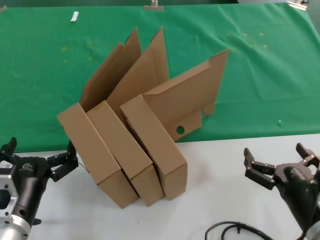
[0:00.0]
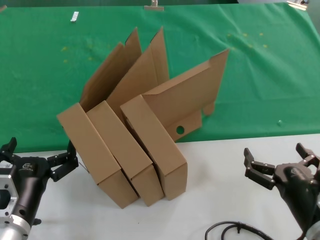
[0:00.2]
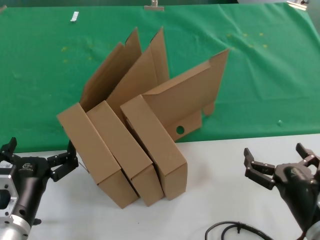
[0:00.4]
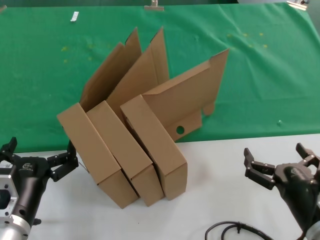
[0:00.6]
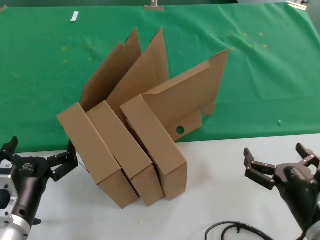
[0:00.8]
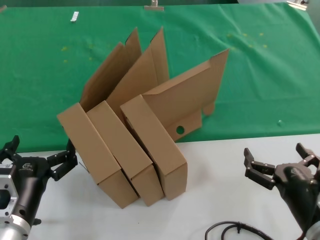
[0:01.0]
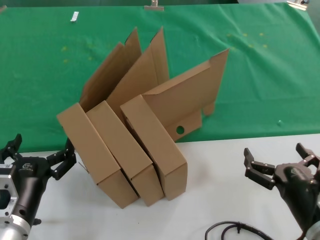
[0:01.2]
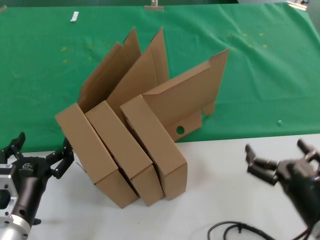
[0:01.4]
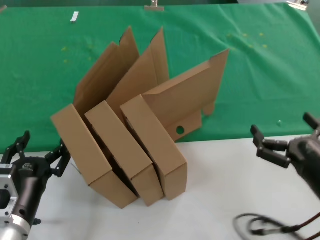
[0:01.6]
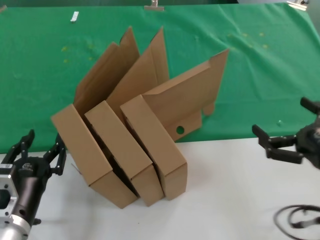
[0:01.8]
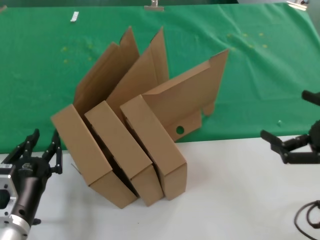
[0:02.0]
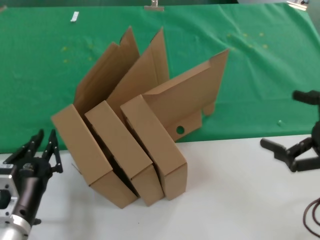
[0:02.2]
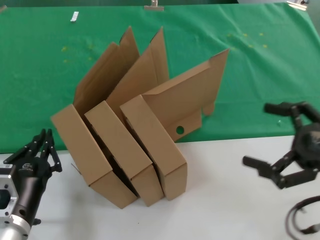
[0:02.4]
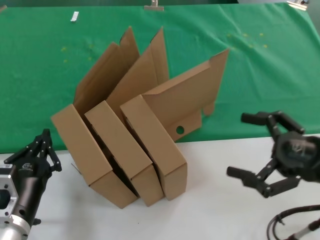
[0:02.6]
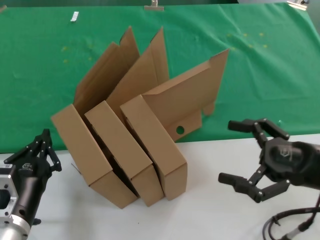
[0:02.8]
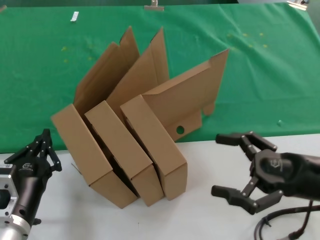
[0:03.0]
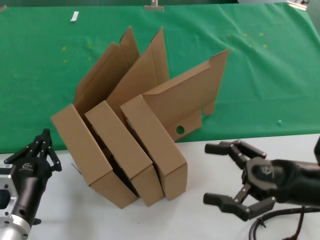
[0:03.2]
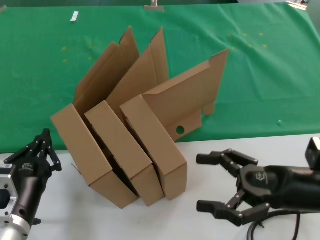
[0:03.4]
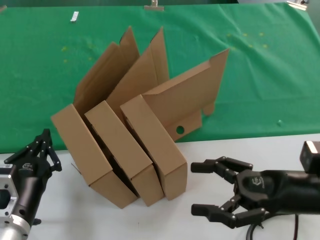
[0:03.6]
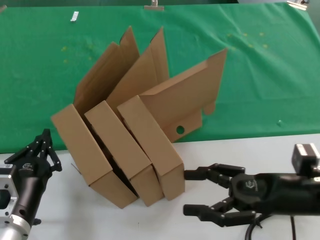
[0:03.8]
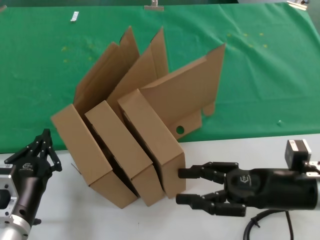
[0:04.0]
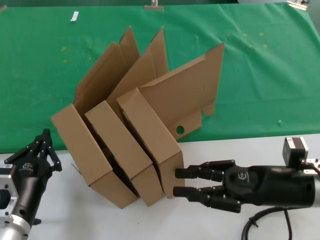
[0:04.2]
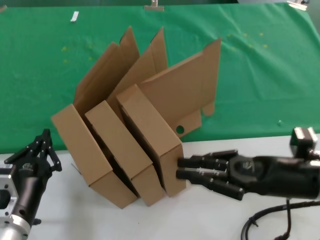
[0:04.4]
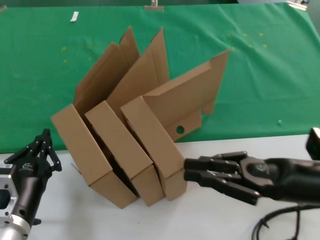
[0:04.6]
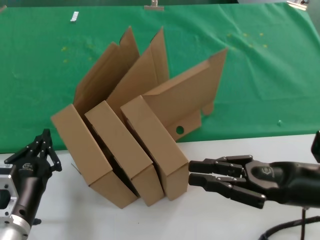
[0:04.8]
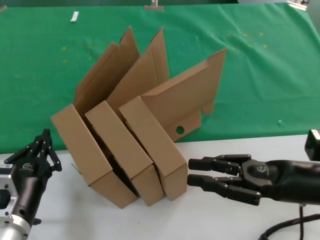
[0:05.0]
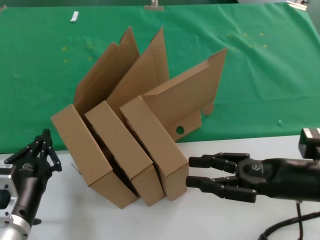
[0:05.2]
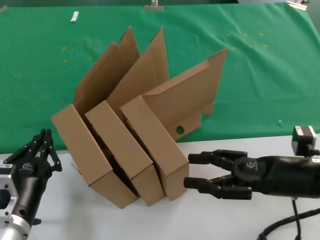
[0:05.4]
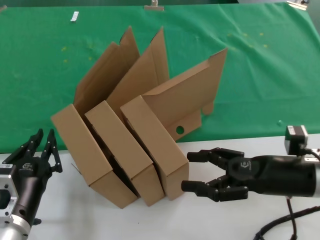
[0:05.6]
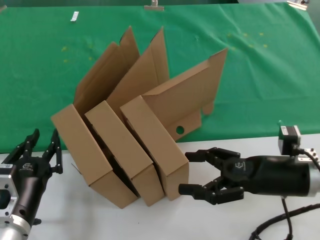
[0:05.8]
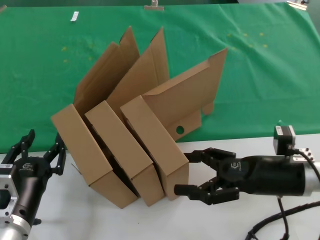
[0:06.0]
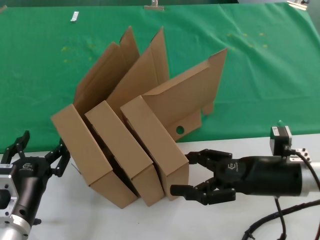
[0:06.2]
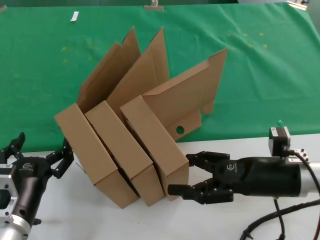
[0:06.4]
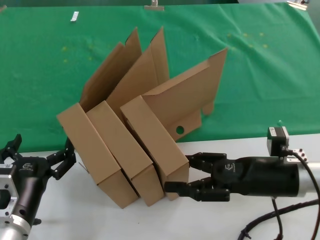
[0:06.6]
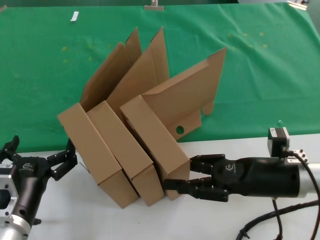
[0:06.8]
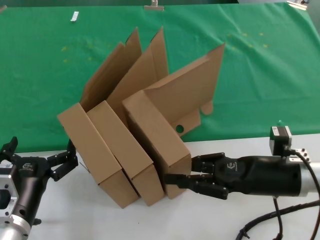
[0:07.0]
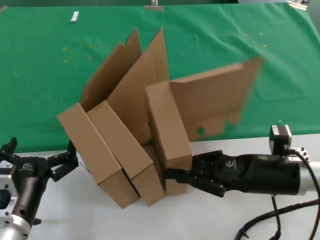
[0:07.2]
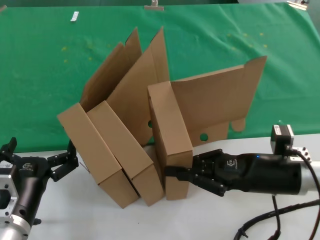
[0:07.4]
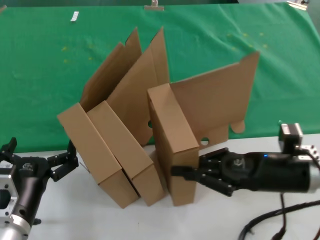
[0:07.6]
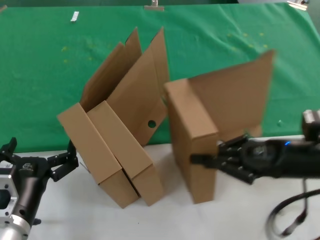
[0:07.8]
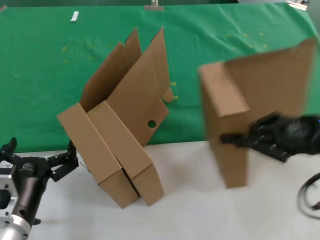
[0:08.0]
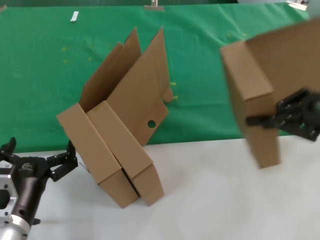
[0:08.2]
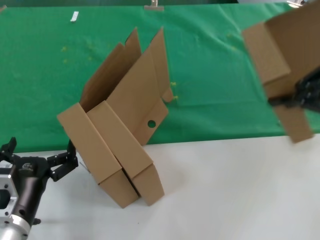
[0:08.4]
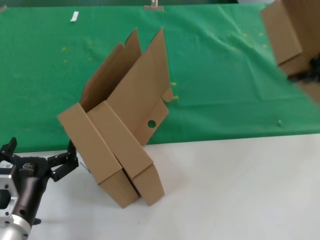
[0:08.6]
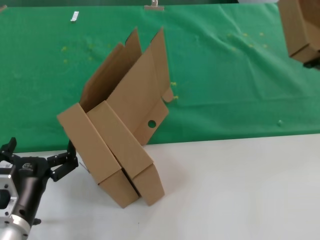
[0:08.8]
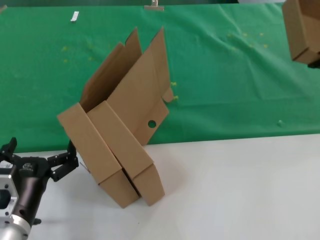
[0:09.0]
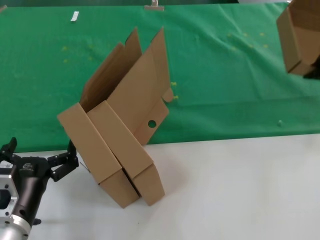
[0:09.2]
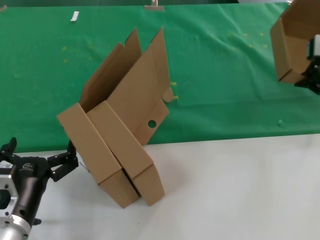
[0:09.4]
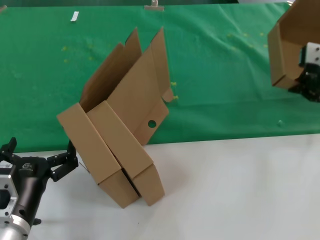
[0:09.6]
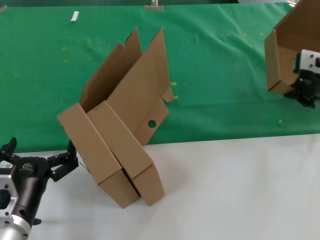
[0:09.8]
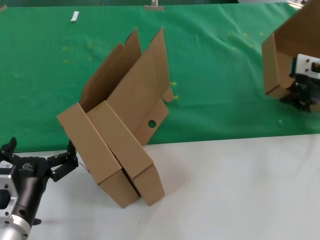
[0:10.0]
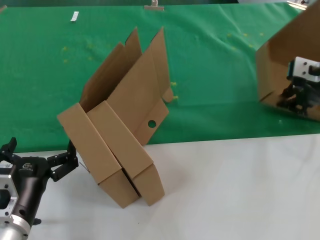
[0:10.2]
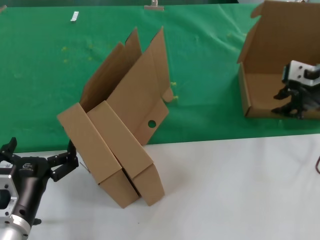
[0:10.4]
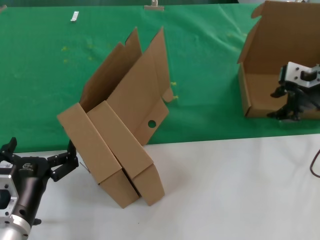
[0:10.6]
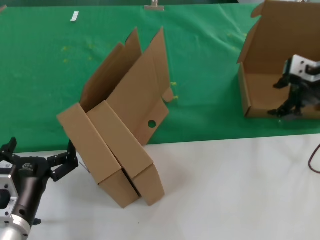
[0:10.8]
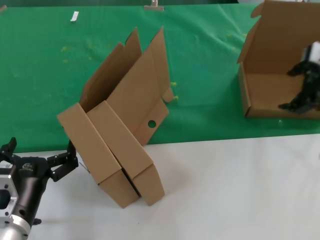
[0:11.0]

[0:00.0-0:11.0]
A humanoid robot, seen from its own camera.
Task of the whole recording: pick up the paper box and put it at the back.
Step, 0:00.0 to 0:07.2: Grasp the paper box.
Step, 0:07.4 to 0:10.4: Place the paper box on the table.
0:00.0 to 0:01.6: The right hand shifts by about 5 cm.
0:01.6 to 0:03.2: The right hand is displaced forward by some 10 cm, and travels upward and back again, some 10 cm each way.
0:03.2 to 0:04.8: There are only small adjustments of the hands.
0:04.8 to 0:06.2: The right hand changes place by about 5 cm.
0:06.2 to 0:07.8: The right hand ends up approximately 5 cm from where it was.
0:07.8 to 0:09.4: The right hand shifts approximately 20 cm upward.

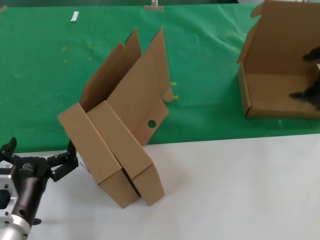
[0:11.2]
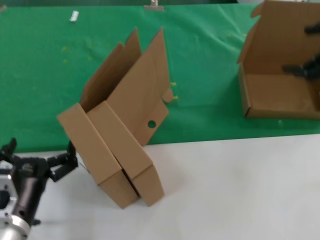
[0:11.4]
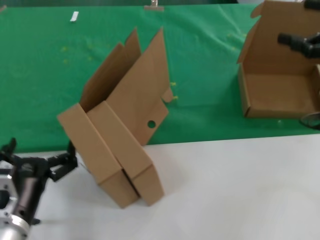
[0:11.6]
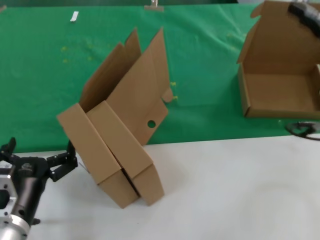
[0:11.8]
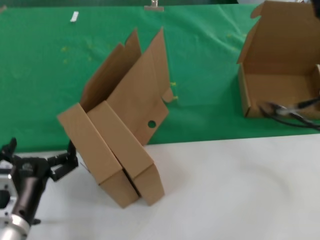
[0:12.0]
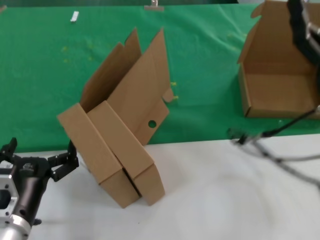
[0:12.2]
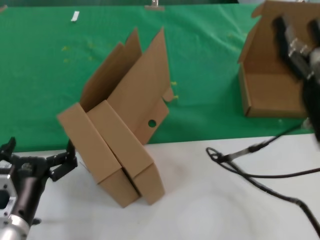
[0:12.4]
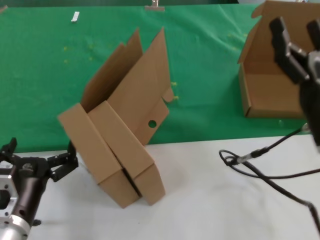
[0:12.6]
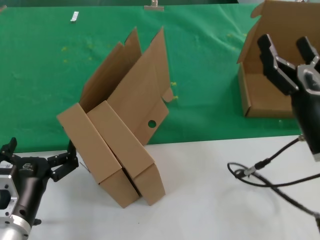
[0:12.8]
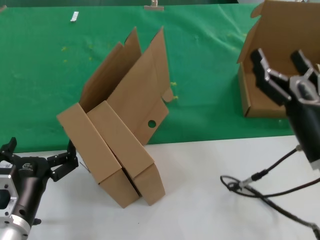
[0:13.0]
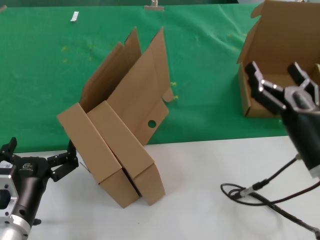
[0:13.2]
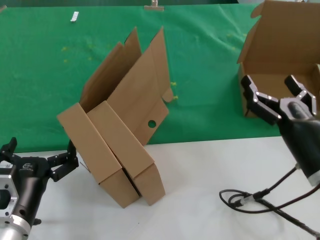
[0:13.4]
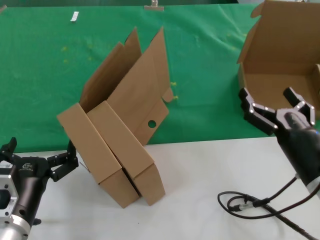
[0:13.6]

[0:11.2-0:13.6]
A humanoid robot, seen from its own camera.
Task of the whole recording: pick up the paper box and put it at the back.
0:11.2 to 0:12.4: The right hand travels downward, to the left and backward by some 25 cm.
0:12.4 to 0:13.6: The right hand shifts by some 5 cm.
